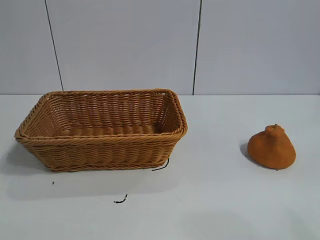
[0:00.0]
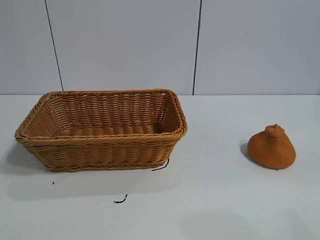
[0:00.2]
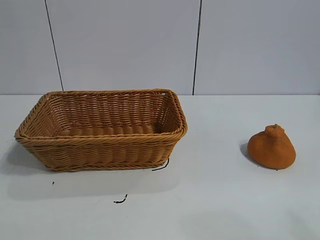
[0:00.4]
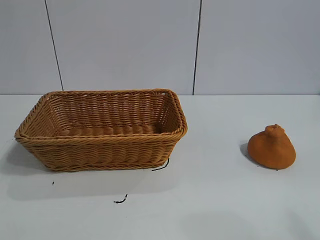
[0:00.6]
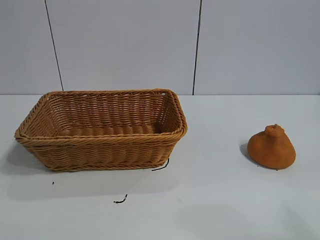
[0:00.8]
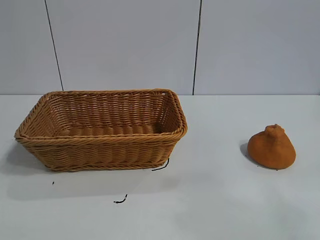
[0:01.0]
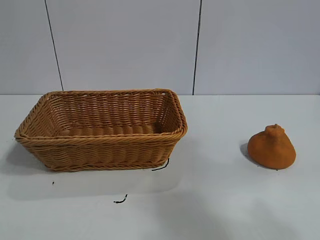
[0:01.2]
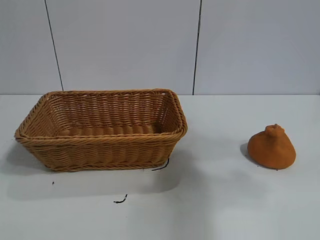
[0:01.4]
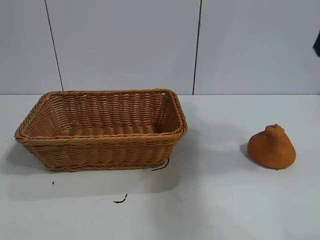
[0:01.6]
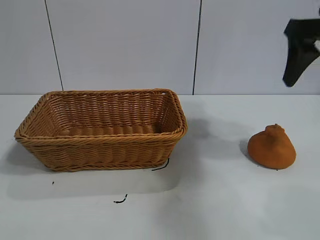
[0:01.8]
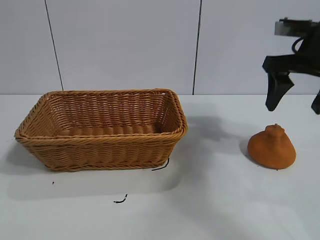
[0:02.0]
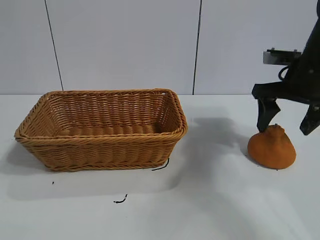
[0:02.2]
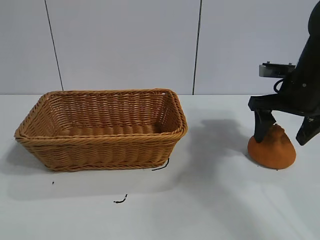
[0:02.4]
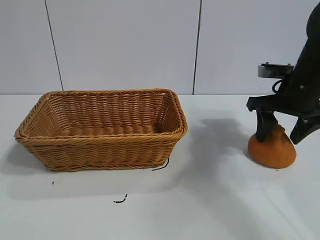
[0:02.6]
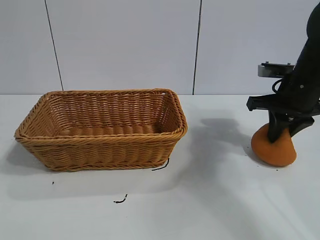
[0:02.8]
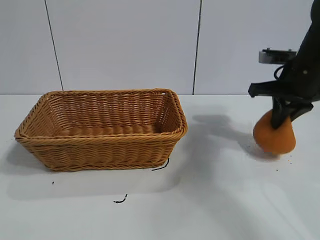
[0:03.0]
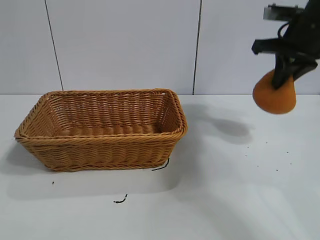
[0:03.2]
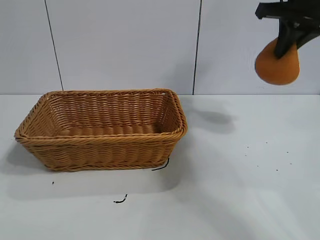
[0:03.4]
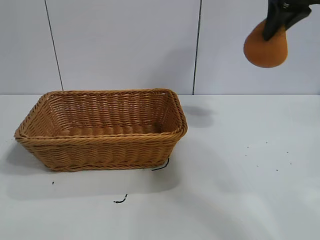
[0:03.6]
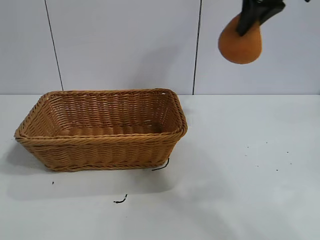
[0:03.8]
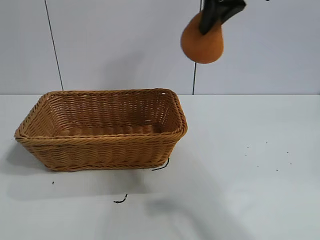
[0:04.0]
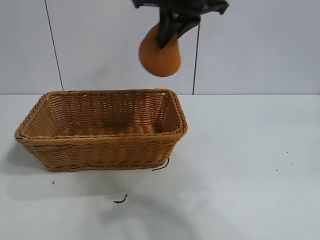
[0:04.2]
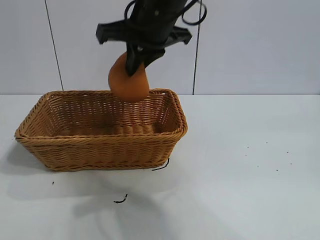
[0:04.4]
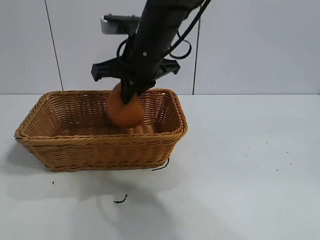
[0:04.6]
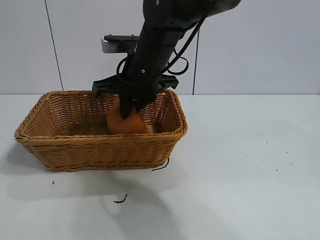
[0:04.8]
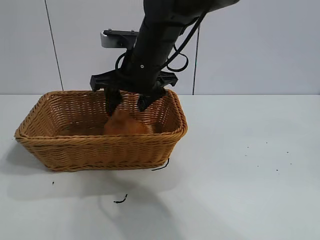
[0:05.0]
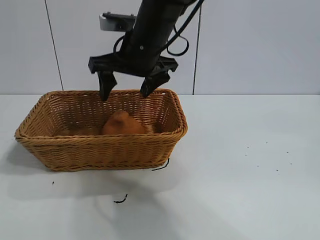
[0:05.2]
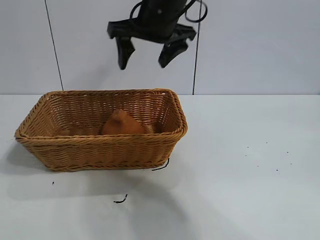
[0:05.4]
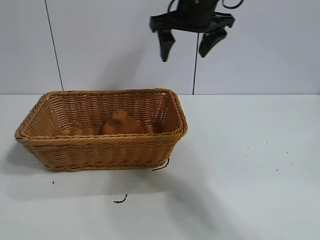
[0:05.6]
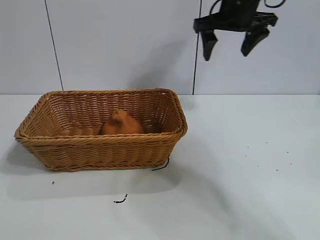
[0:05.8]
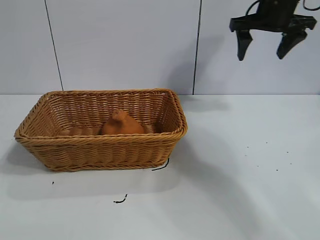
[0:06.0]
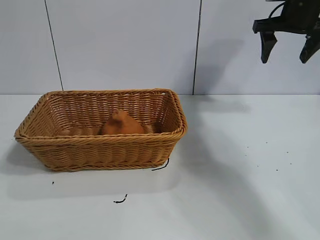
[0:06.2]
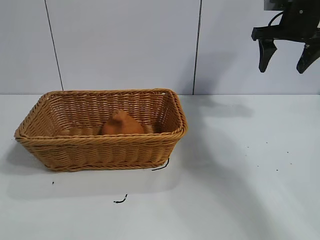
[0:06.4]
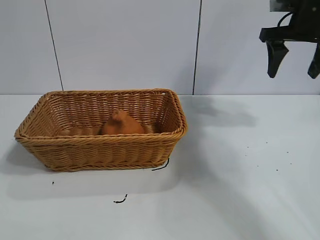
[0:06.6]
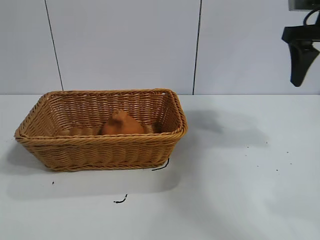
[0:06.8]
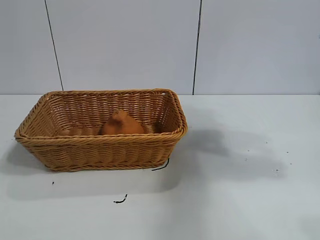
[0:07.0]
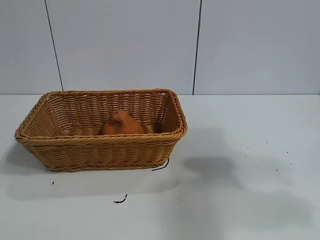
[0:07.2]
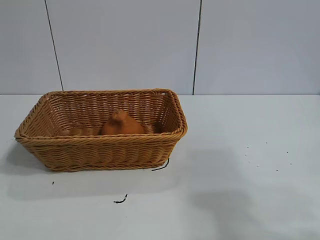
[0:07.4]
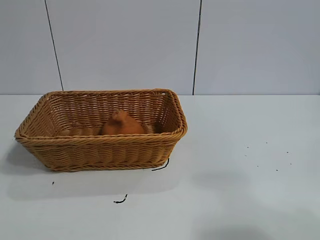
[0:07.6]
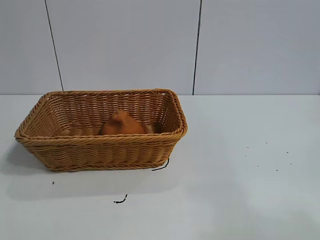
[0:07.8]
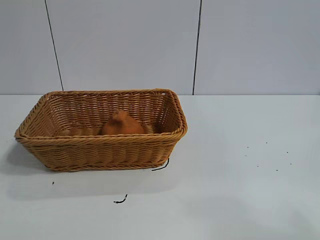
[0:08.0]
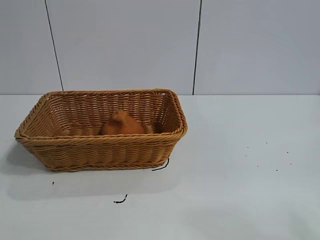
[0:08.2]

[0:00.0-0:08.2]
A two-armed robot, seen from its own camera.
Task of the whole recording: pick up the orange and put it into the basket.
Step, 0:00.6 to 0:02.8: Grasp the orange with right gripper.
Step, 0:03.2 to 0:05.0: Place the orange in the basket with right gripper.
